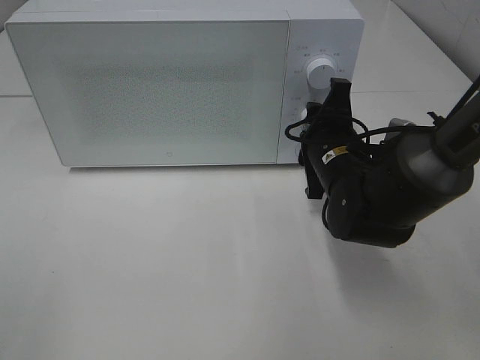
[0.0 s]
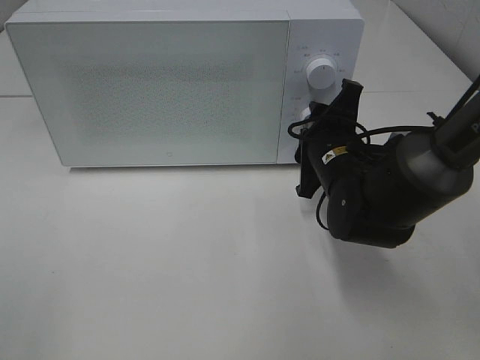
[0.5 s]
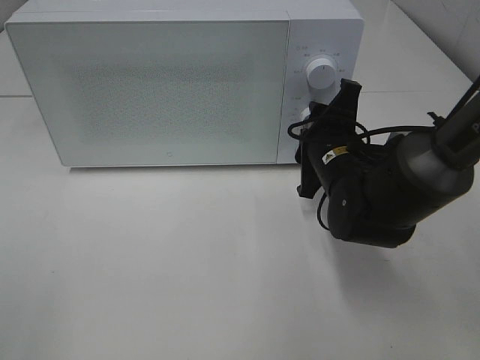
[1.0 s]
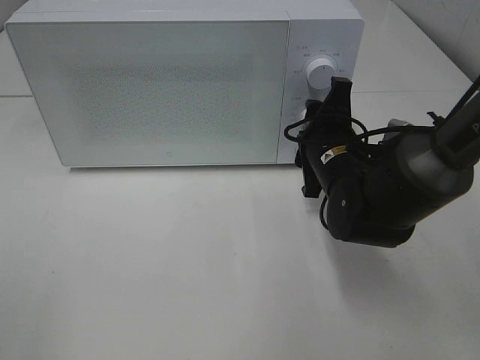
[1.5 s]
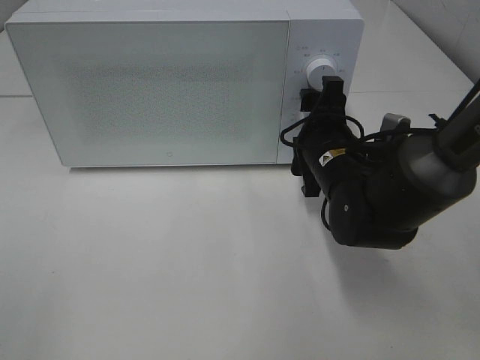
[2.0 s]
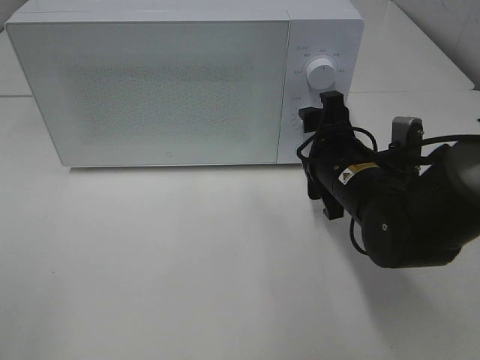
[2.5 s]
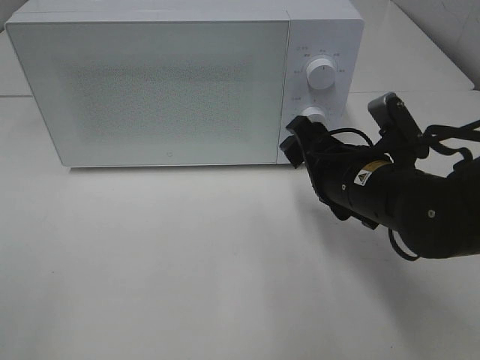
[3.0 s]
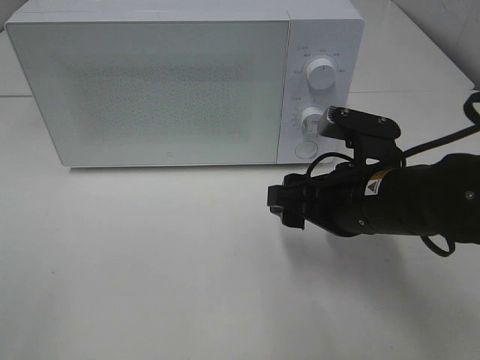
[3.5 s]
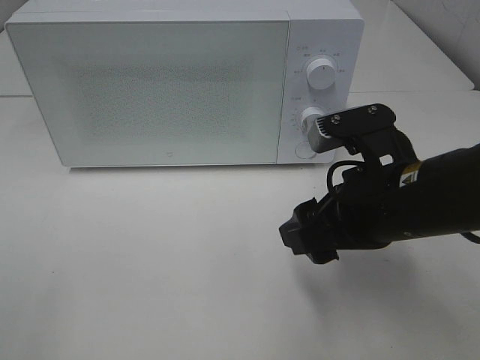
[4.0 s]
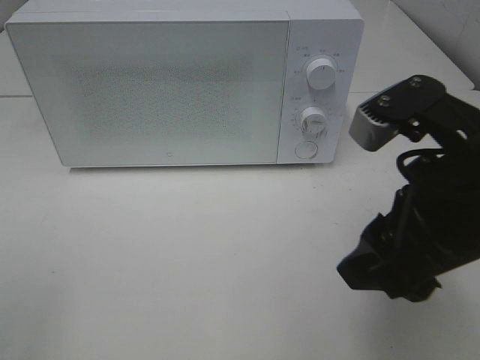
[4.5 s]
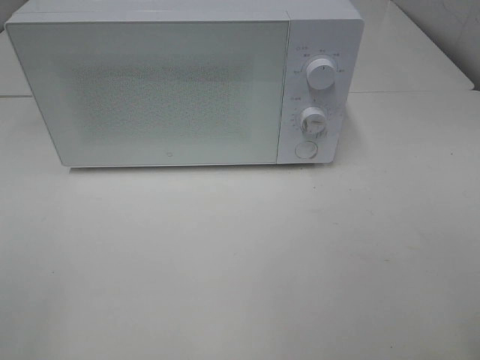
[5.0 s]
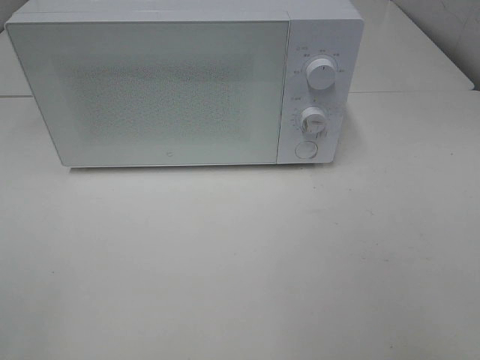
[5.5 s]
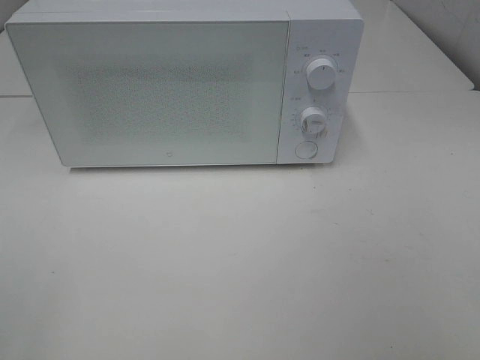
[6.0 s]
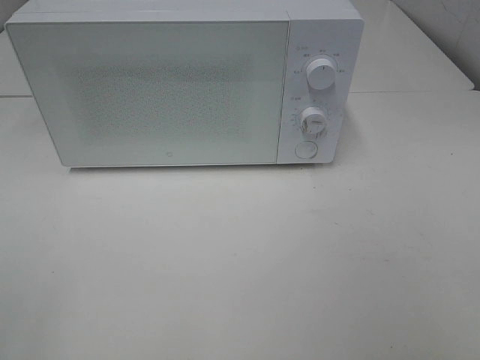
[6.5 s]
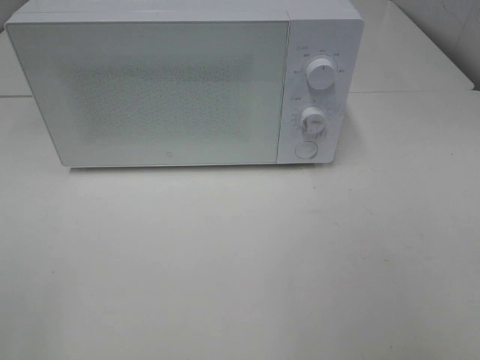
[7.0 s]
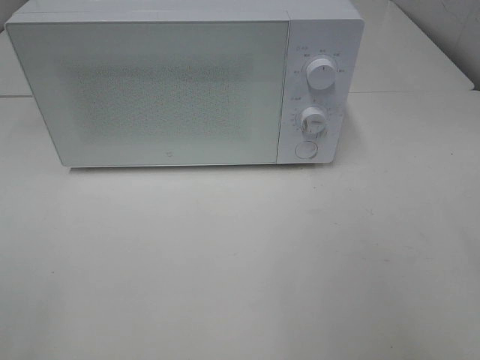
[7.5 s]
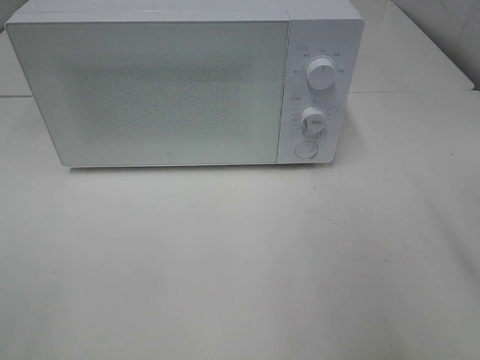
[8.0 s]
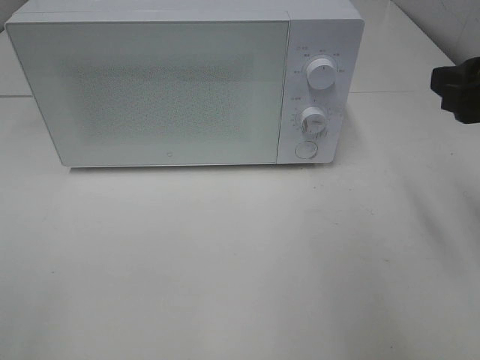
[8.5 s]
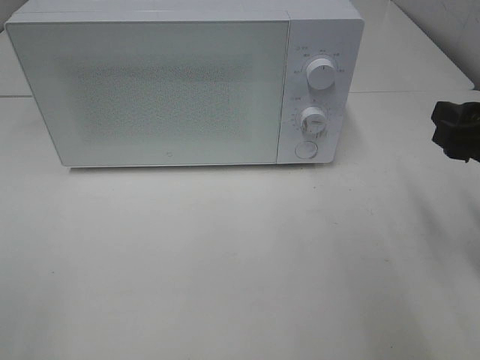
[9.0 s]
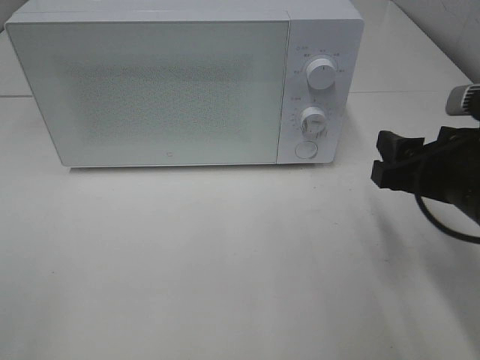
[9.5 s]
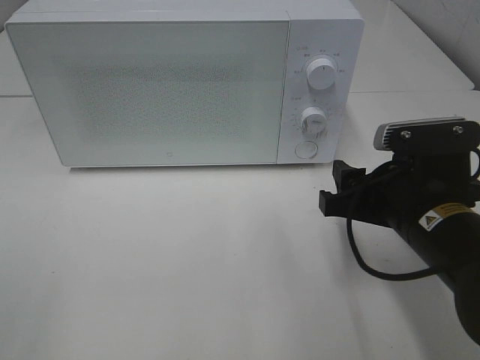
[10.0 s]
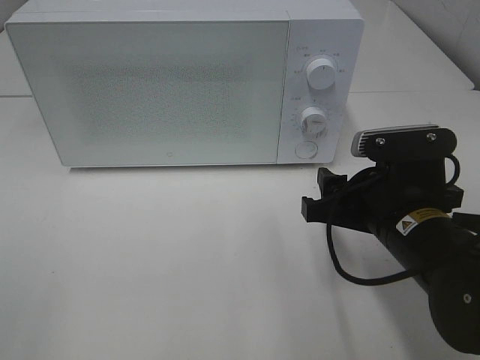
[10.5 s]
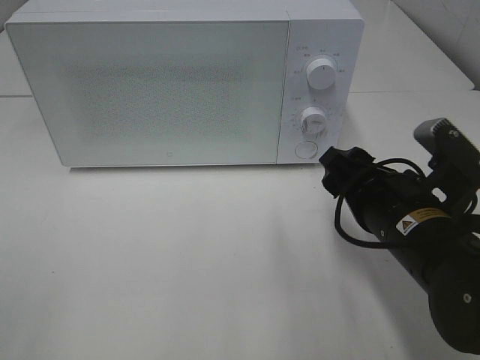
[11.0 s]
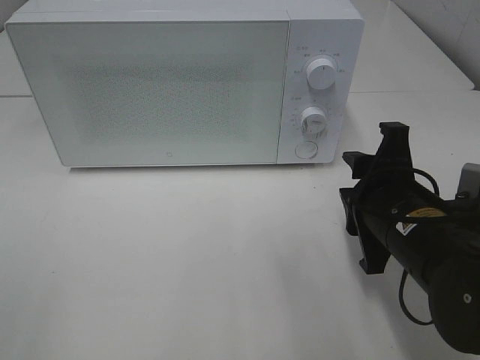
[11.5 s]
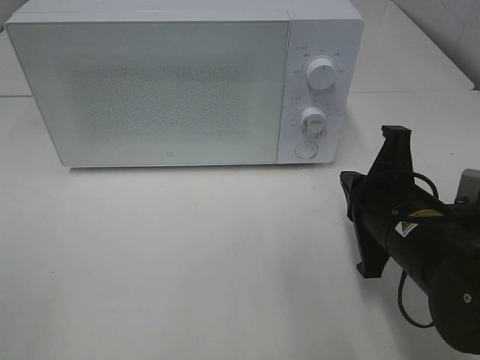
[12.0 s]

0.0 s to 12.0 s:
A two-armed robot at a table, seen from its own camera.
Task of the whole recording: Heat Sandwich.
Step, 0.0 to 2.5 s: Right hand: twist timer button.
0.0 to 2.0 s: The grippers stay close to where they were, moving slightly.
2.0 to 4.0 s: The right gripper heads backward and upward, covering about 15 cm.
4.0 to 6.0 s: The right gripper shifts approximately 30 cm backward, to the right and upward.
8.0 to 10.0 s: The right gripper travels downward and to the left by approximately 20 cm.
10.0 to 12.0 s: The right gripper closes its fingers.

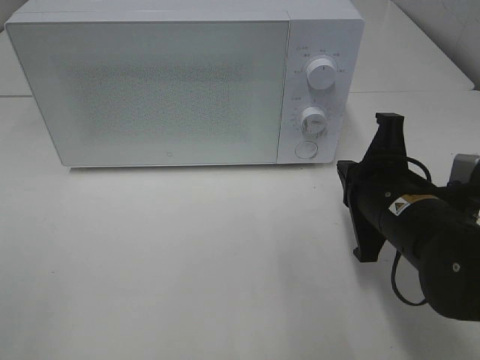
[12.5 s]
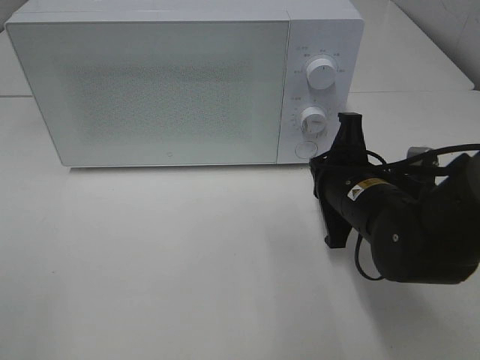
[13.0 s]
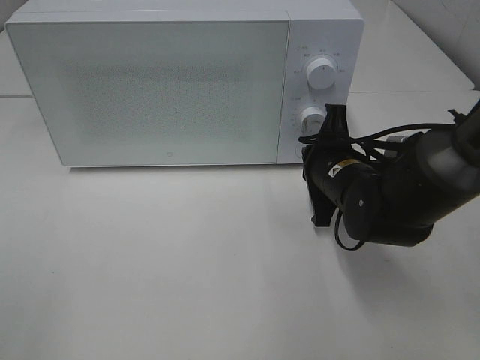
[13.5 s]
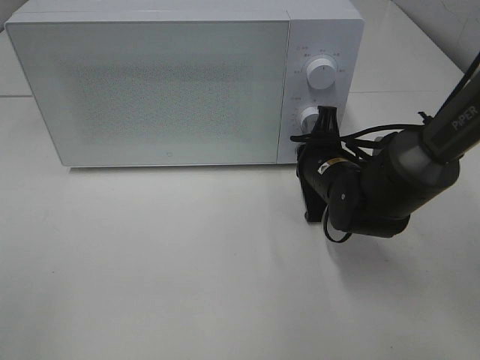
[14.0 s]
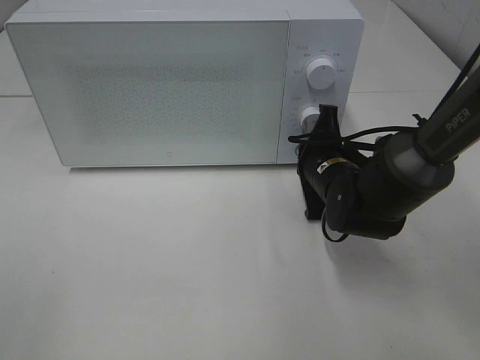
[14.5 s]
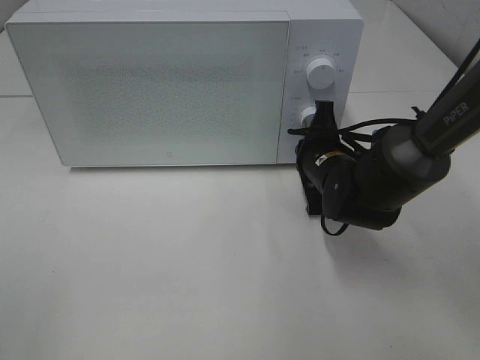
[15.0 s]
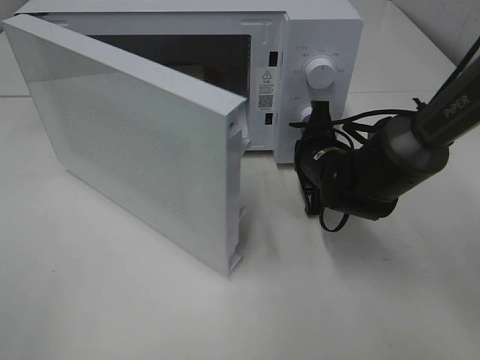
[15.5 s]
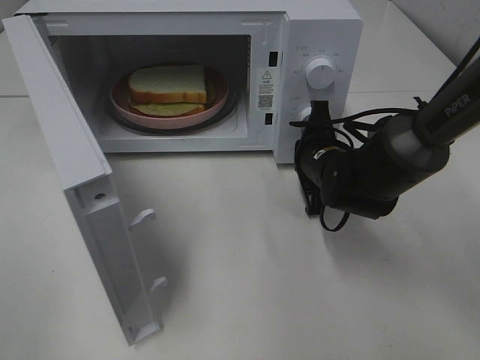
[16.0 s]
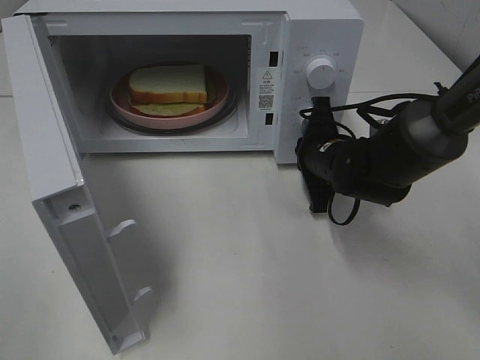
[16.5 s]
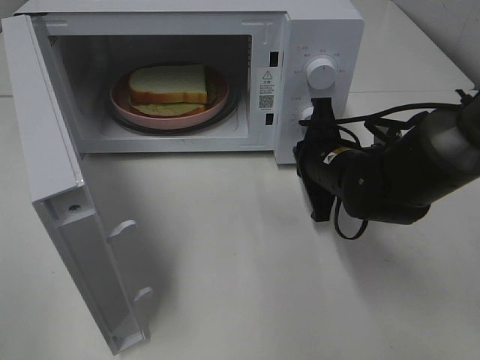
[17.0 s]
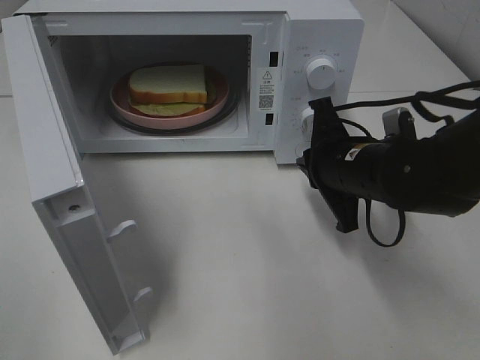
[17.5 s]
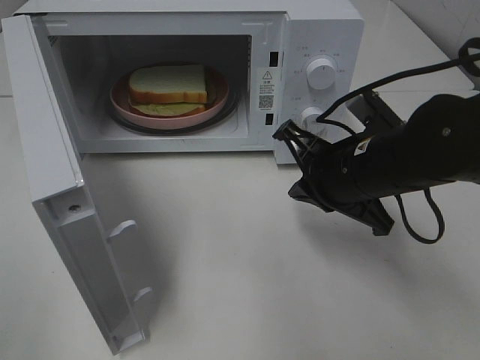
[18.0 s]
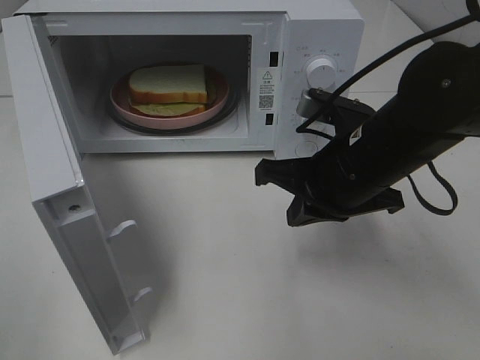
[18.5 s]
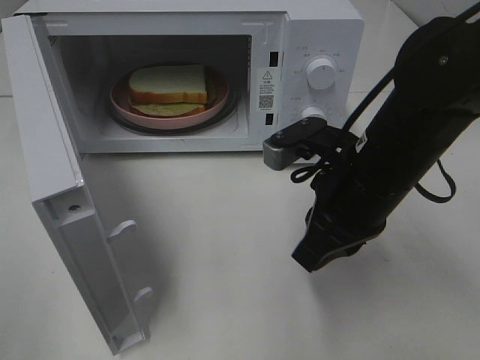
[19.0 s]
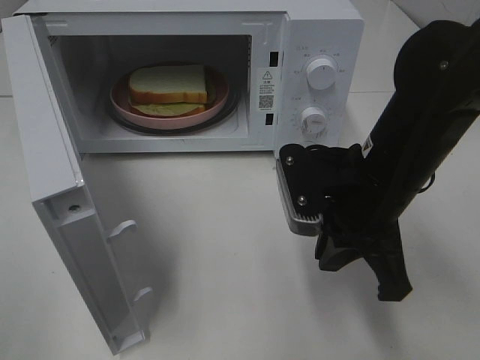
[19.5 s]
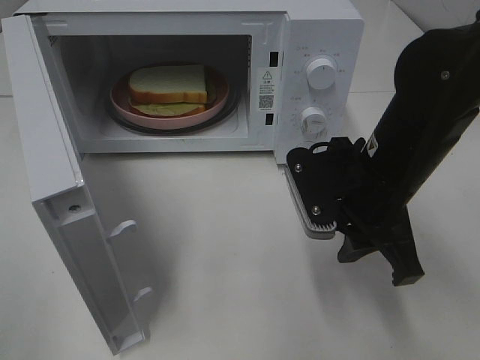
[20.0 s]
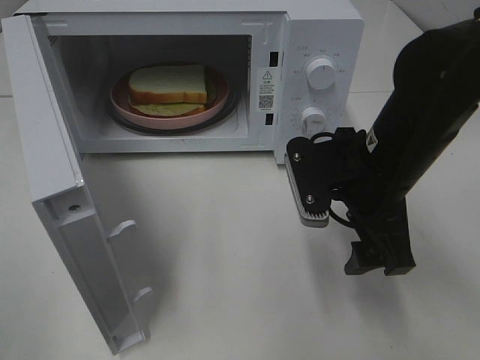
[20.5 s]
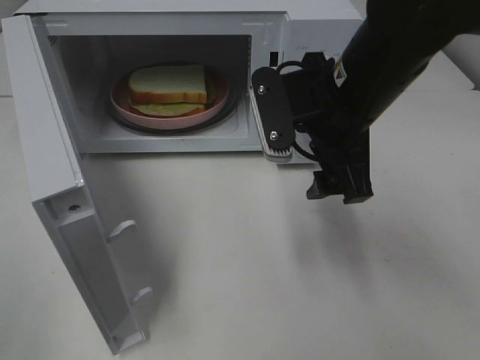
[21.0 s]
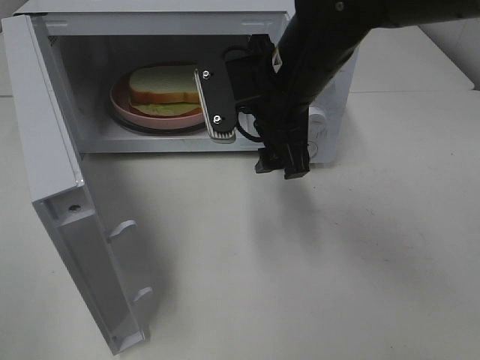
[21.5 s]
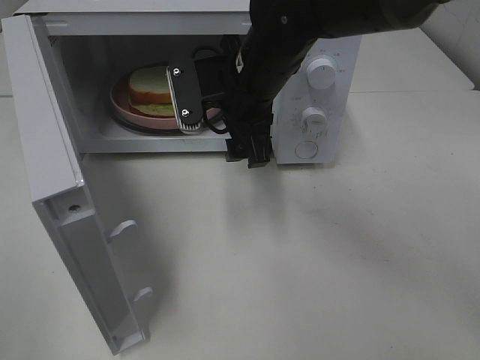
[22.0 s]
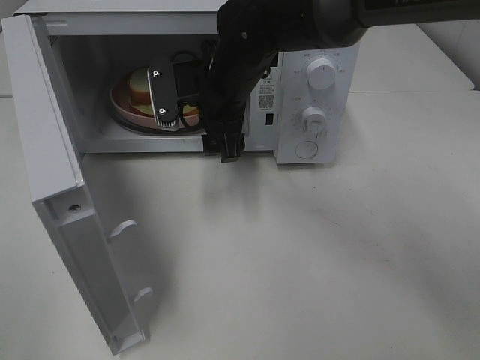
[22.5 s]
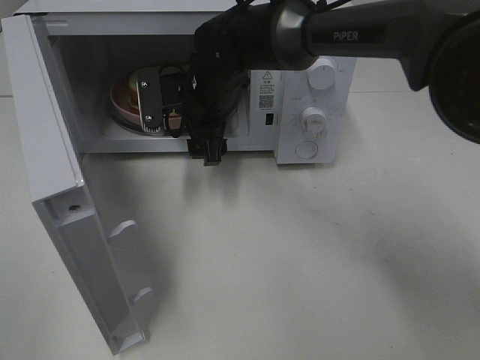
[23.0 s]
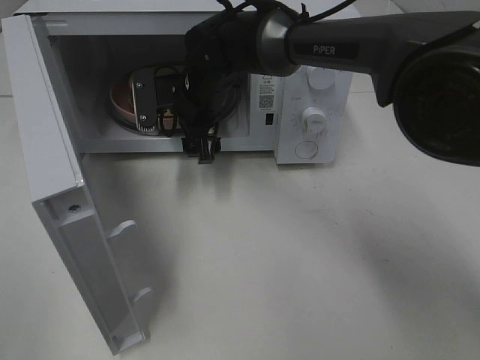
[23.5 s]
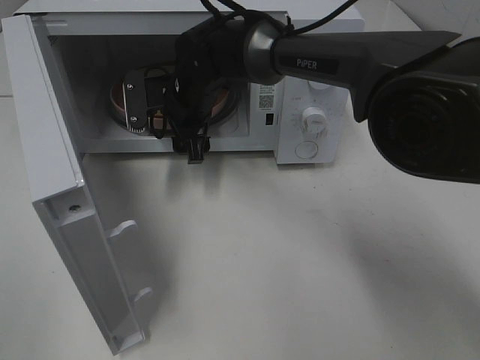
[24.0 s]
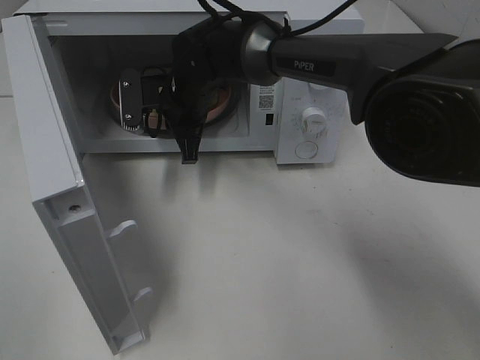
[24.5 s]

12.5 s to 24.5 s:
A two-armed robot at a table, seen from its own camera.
Task of the whole recording: Heat Sandwich.
Step, 12.5 to 17.0 s: Right hand: press the switch.
12.5 to 14.5 s: The right gripper moves forward and downward, about 15 cm.
16.5 to 18.5 s: The right gripper heads backward and upward, covering about 15 cm.
18.5 to 20.5 s: The right gripper opens.
20.5 to 22.5 s: The right gripper shifts approximately 20 cm to the left and forward.
22.5 to 24.5 s: The right gripper moves approximately 10 cm, and closes its fingers.

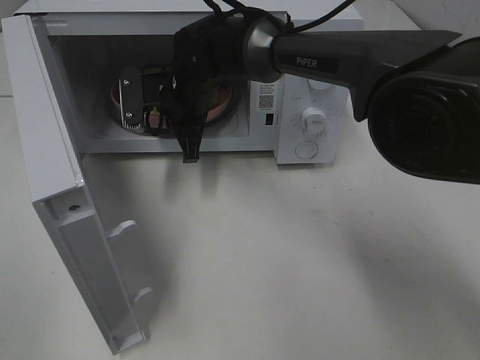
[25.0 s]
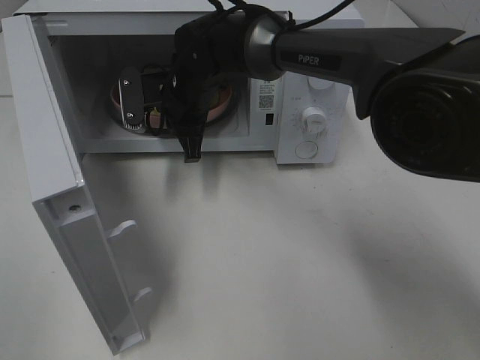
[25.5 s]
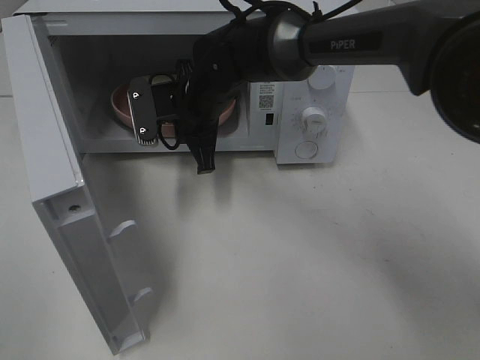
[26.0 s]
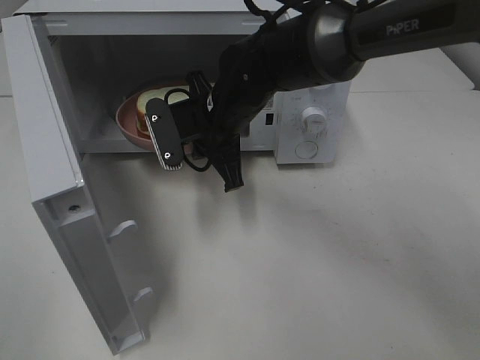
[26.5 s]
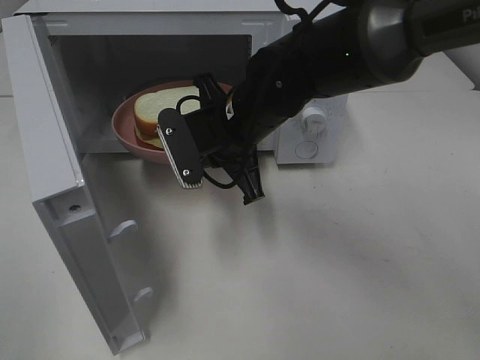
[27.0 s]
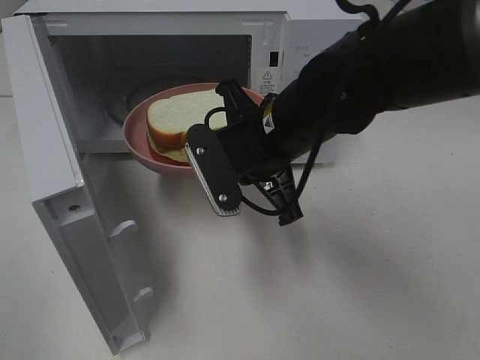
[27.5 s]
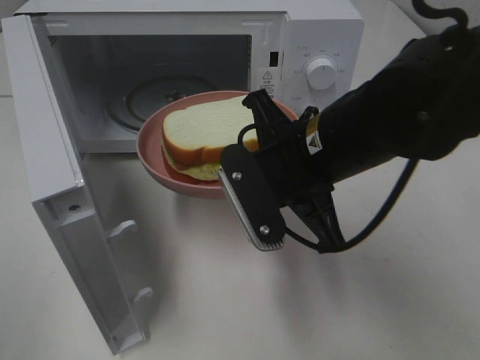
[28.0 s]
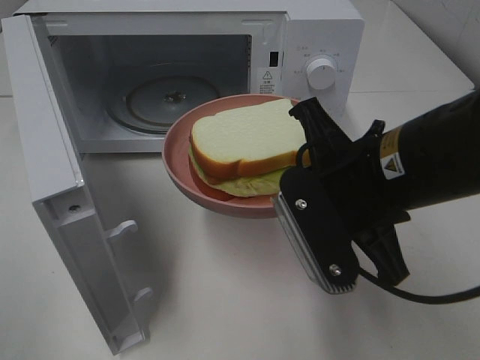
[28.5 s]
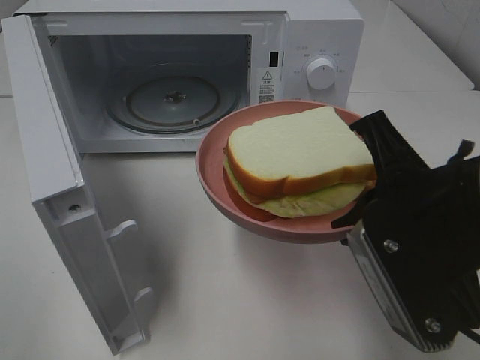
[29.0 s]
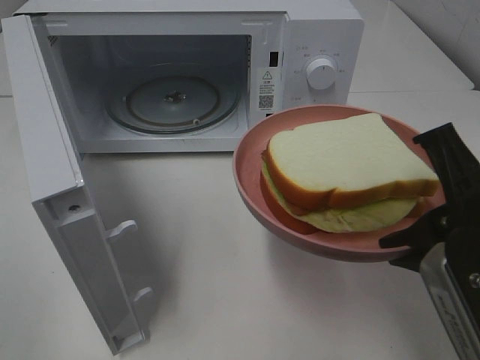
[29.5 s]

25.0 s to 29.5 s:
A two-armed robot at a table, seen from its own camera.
Task of the whole recording: Heat Sandwich.
25.0 to 27.0 s: The right gripper travels backward and to the right by about 15 cm.
27.0 to 29.5 s: The right gripper travels backward and to the right by roughly 25 cm.
